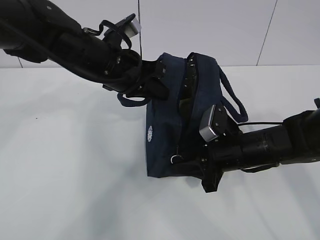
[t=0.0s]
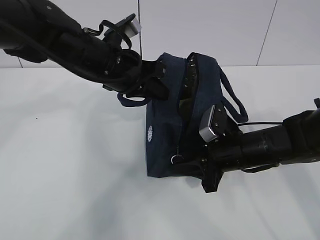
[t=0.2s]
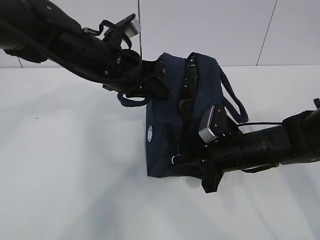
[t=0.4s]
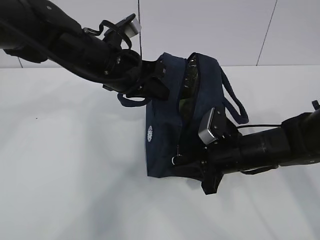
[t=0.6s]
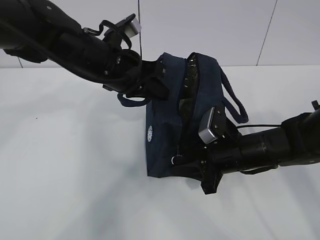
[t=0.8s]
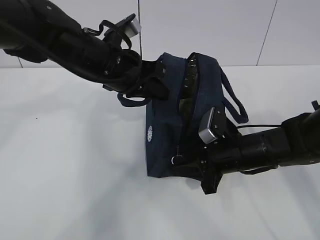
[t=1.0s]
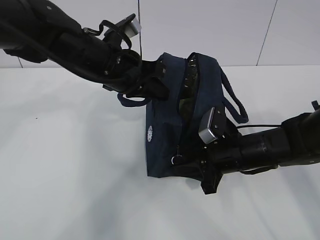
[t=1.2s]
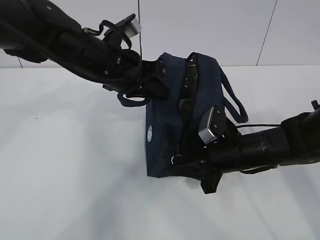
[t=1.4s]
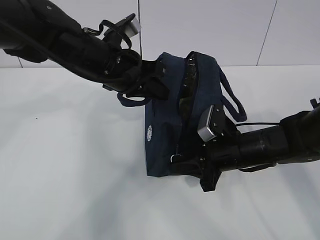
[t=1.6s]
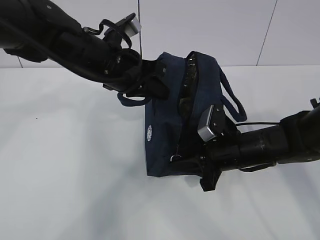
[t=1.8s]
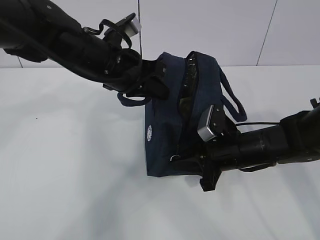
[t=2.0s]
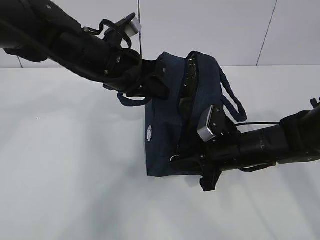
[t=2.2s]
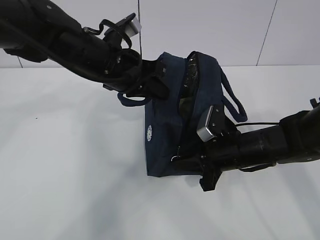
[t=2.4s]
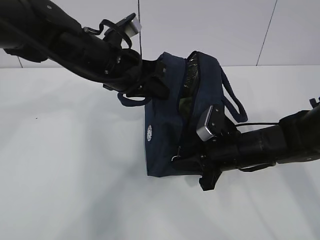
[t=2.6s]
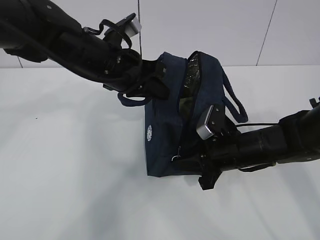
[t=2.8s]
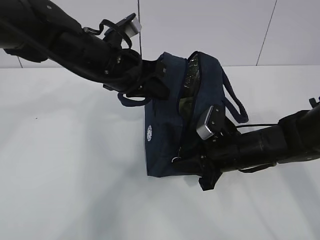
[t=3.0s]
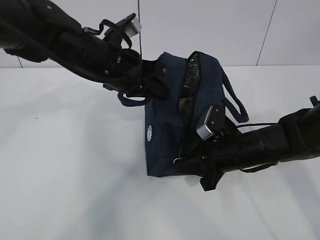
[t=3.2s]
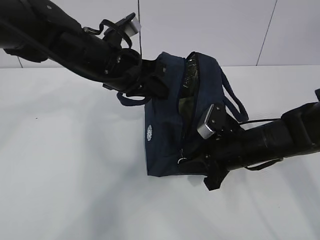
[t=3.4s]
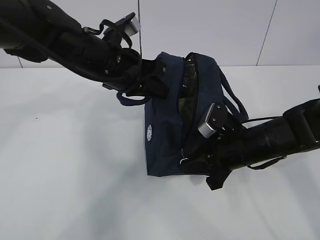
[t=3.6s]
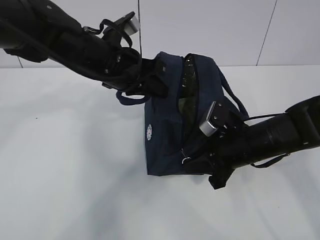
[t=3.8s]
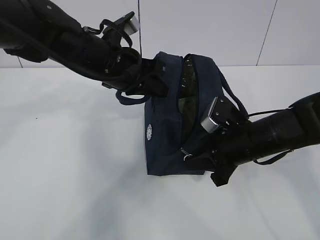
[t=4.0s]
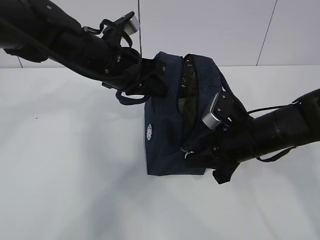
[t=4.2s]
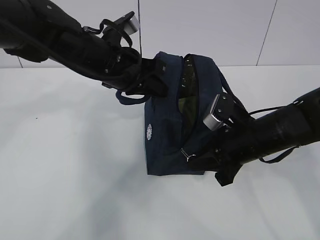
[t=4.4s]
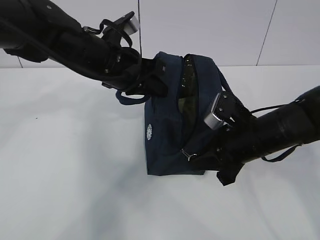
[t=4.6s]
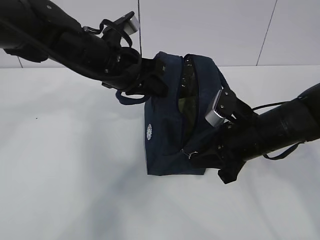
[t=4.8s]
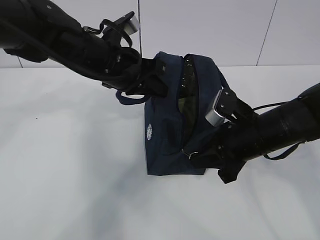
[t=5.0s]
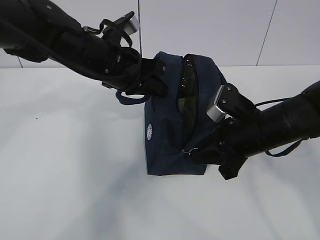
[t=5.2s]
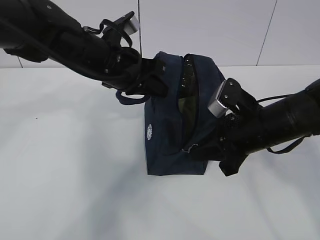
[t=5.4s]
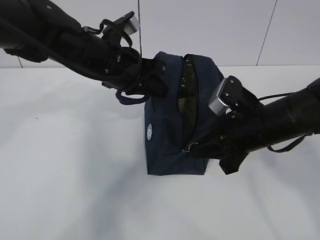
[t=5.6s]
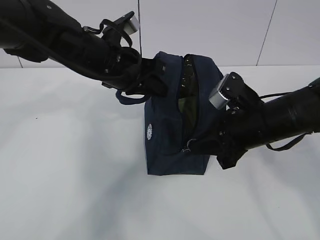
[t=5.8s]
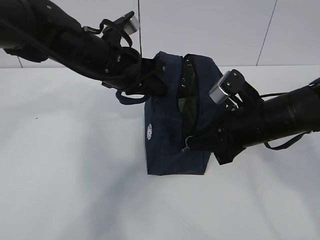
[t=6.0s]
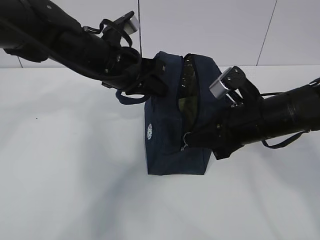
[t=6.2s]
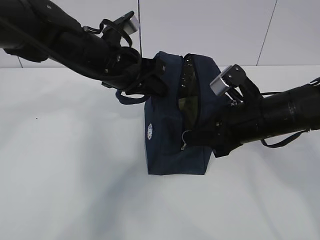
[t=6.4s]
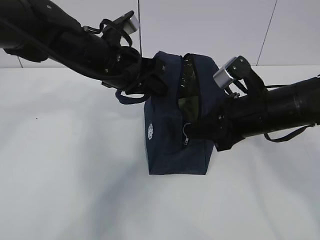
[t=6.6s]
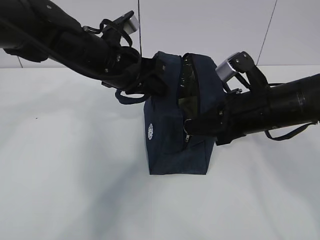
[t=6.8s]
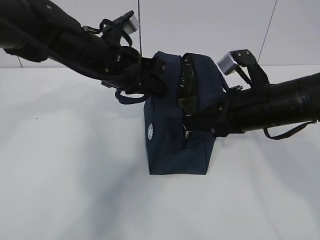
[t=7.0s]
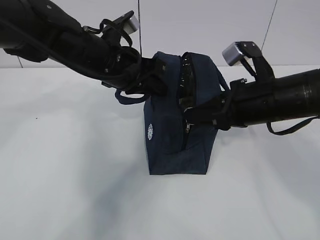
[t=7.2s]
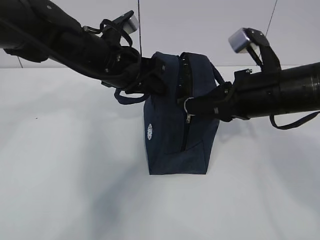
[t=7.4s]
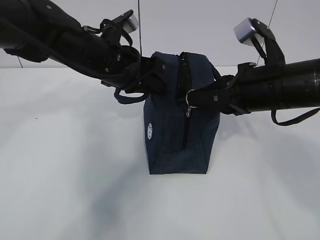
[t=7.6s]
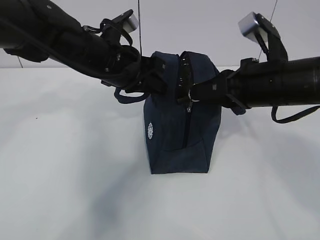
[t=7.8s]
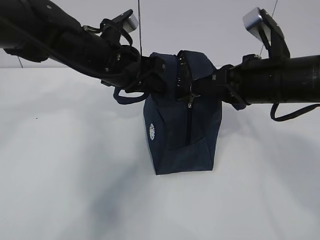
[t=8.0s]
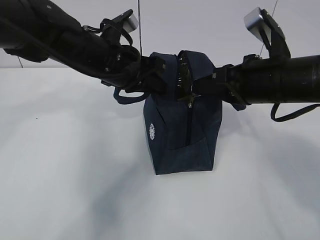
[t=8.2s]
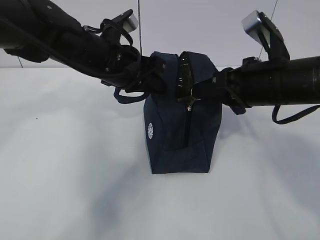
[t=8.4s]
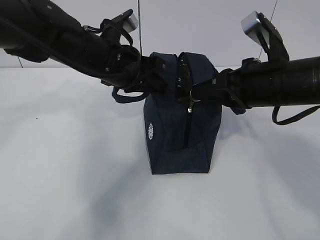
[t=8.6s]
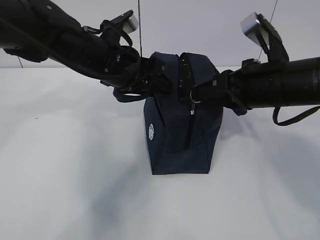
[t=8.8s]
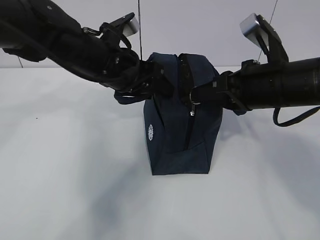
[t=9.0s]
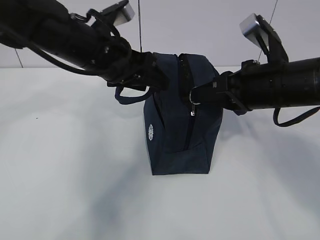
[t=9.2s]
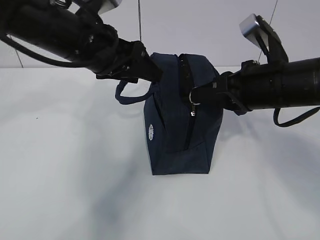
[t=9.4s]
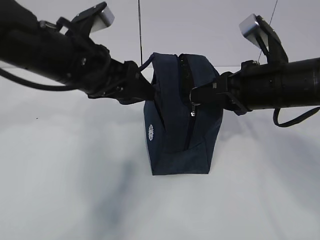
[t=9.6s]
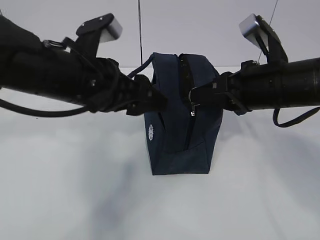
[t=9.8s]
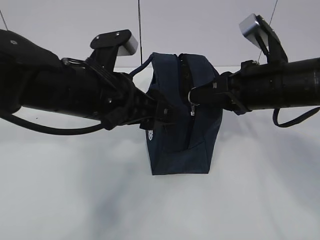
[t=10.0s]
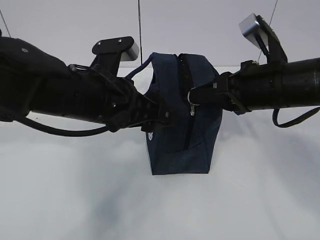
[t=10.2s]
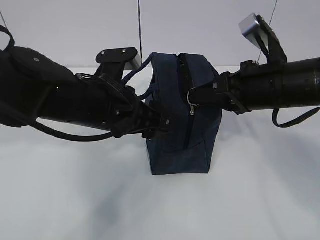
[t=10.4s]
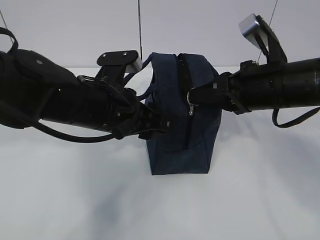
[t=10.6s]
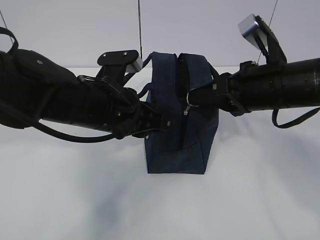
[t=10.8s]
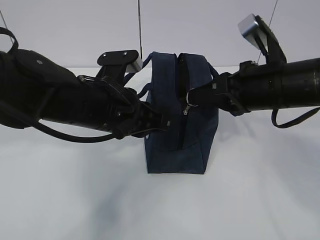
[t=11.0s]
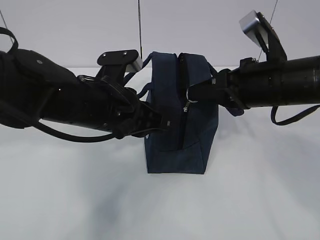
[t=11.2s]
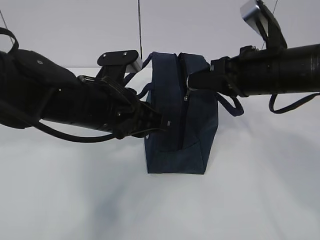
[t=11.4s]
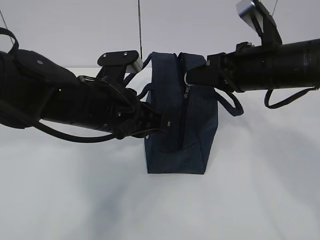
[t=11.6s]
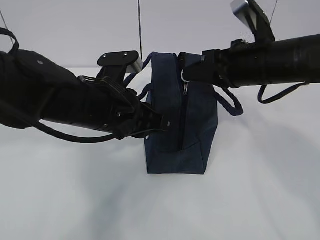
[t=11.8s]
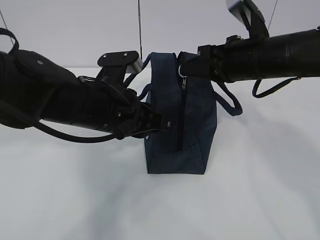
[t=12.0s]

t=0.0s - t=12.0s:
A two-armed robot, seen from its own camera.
Step, t=0.0s - t=3.2s: Pull the zipper with your right hand.
t=0.0s - t=1.6s: Both grippers stay put.
t=1.6s - t=3.0s: The grippers make only small movements.
t=3.0s - t=4.4s: The right gripper shifts by about 5 cm.
t=4.4s - t=6.0s: The grippers stay close to where they were, moving slightly.
t=6.0s - t=7.6s: The right gripper goes approximately 5 cm upward.
t=7.6s - t=9.0s: The left gripper opens.
t=9.0s - t=10.4s: The left gripper moves backward, some 10 cm.
t=10.4s - t=12.0s: The right gripper is displaced forward by about 5 cm. Meanwhile the left gripper closes.

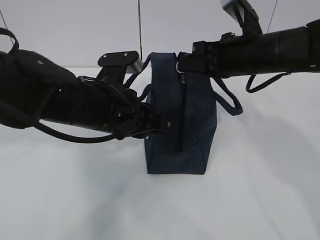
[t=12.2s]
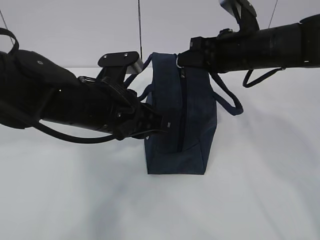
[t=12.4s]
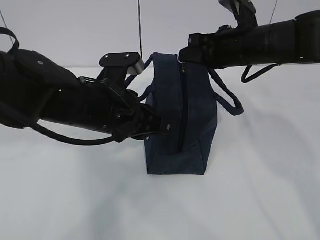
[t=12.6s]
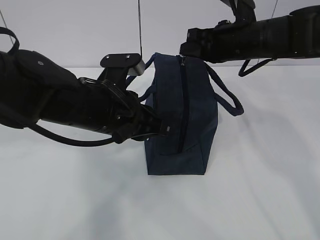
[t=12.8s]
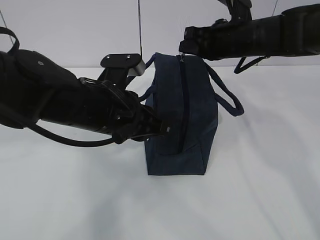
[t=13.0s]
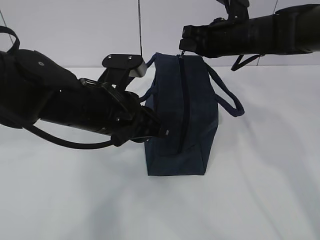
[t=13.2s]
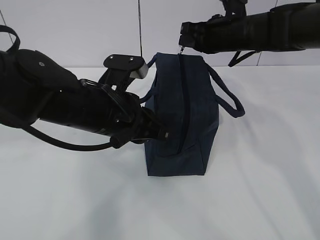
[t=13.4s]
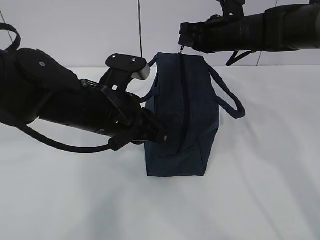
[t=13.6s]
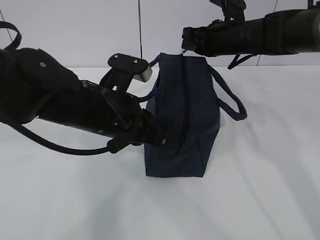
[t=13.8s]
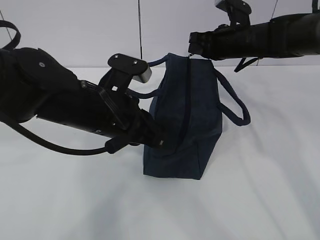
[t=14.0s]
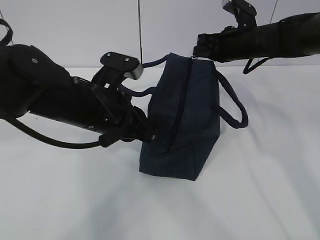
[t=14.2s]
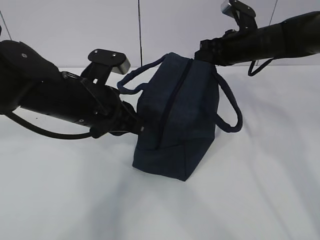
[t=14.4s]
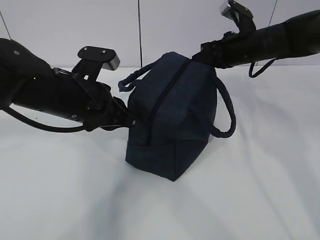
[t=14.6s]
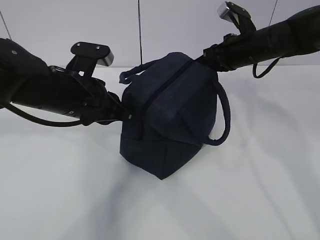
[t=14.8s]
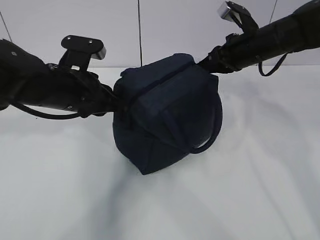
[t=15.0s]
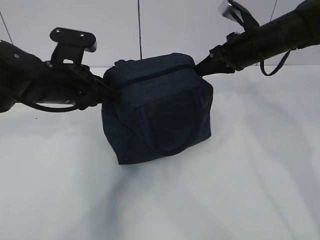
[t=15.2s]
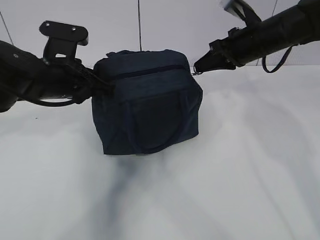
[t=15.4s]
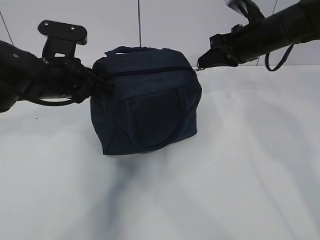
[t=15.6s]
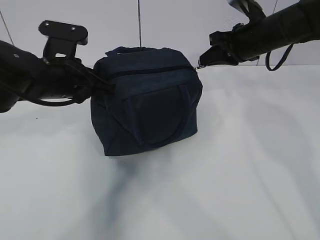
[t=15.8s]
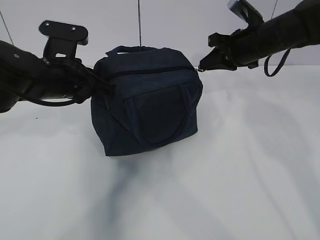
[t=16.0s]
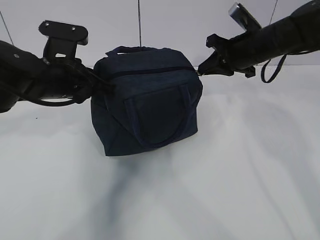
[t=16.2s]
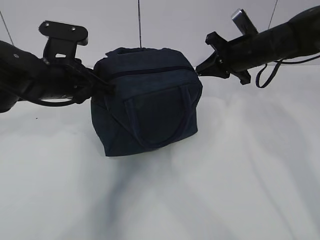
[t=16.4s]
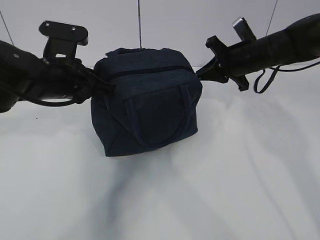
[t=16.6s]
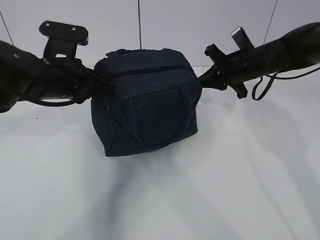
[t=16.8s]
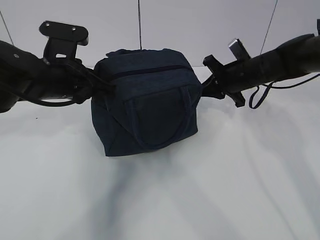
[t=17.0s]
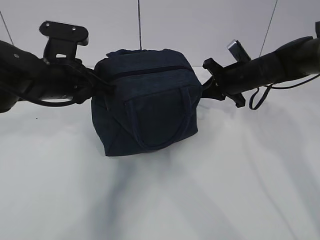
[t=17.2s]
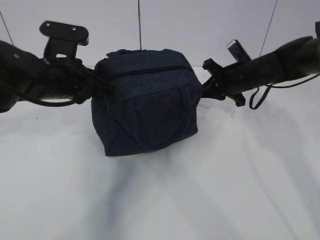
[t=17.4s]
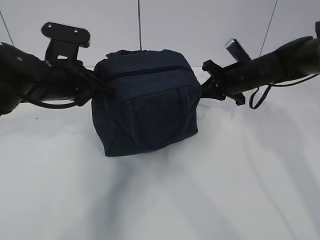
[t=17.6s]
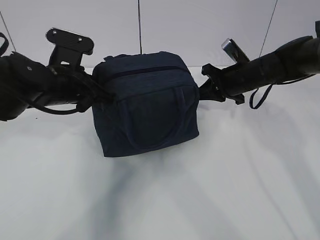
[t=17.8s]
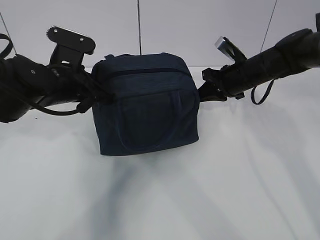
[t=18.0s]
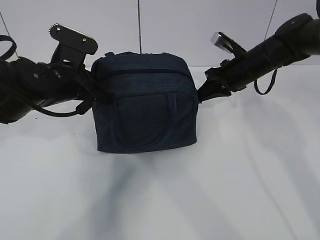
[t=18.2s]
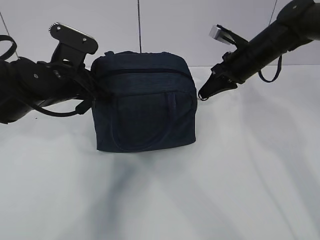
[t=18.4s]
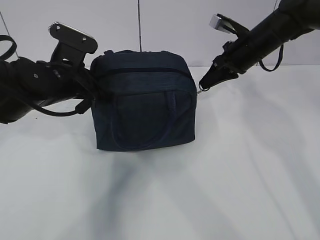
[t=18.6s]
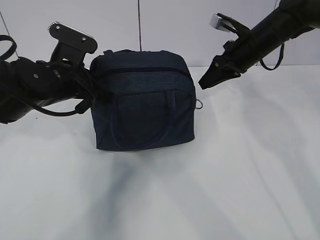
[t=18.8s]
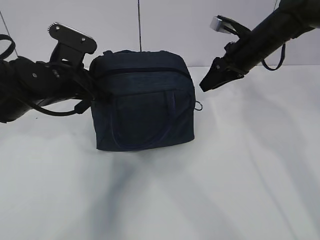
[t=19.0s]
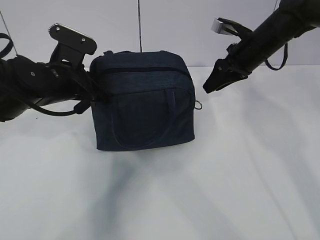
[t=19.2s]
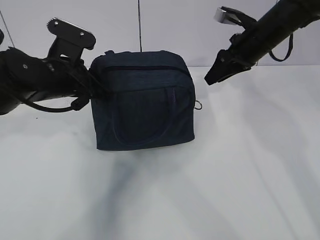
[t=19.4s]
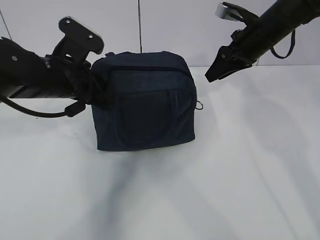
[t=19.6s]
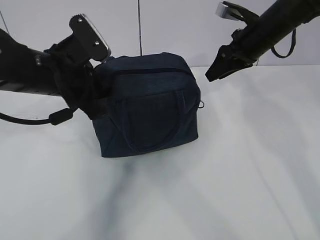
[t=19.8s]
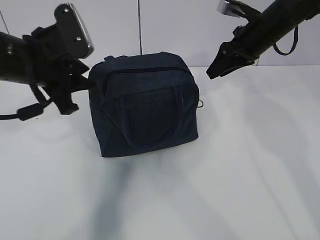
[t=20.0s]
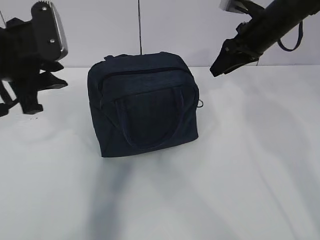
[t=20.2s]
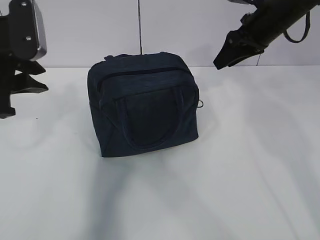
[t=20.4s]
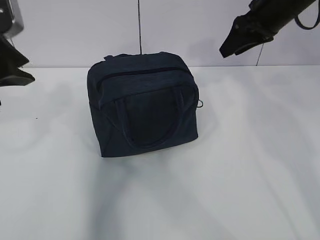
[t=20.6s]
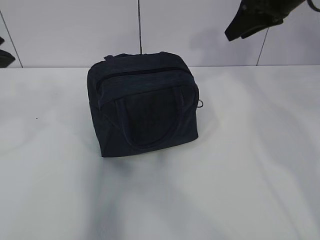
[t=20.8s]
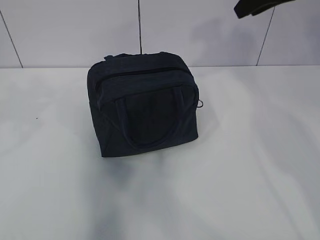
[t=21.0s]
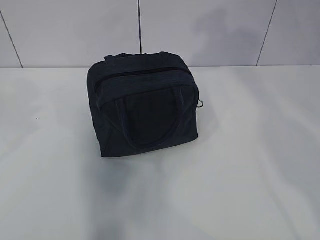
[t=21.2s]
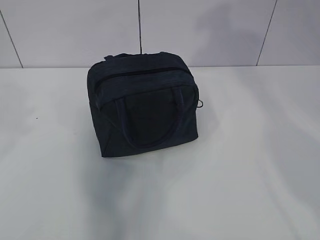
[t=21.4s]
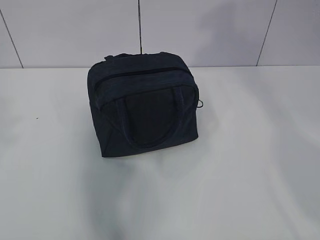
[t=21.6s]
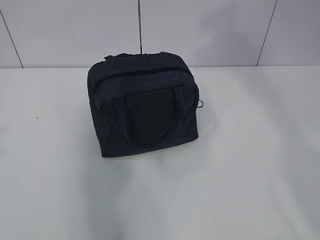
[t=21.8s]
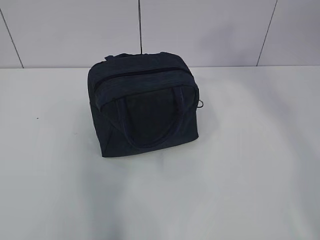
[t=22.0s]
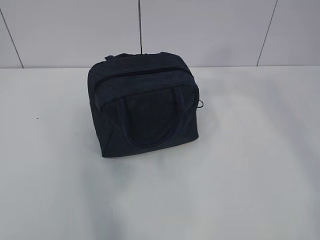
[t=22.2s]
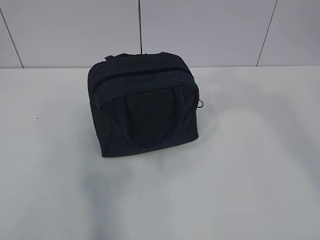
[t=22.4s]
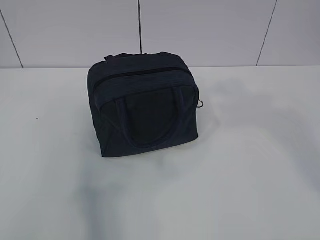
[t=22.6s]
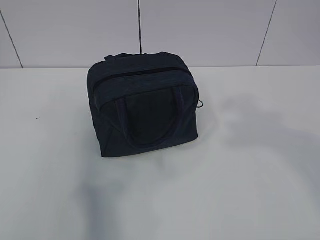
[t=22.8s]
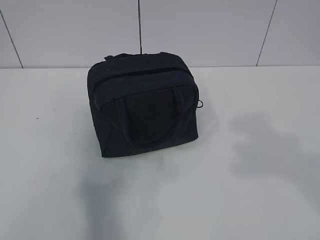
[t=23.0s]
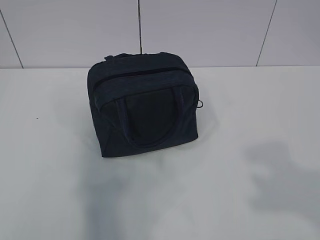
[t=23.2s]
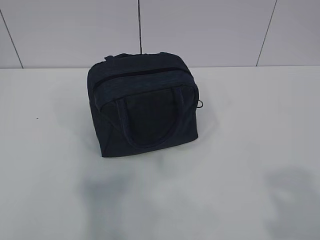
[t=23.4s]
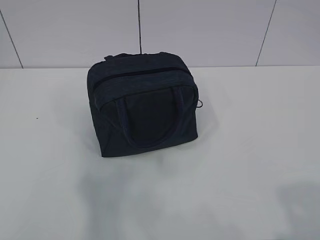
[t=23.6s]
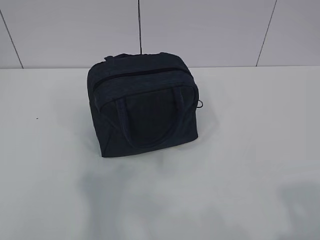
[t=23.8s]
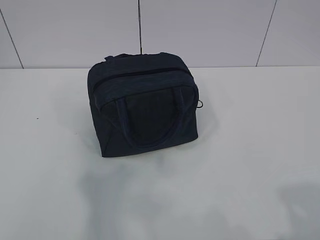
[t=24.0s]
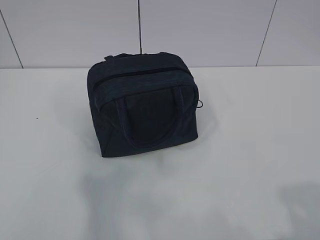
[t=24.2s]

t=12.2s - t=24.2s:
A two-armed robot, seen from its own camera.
t=12.2s - t=13.8s: The right gripper travels forward by some 10 cm.
t=13.8s - t=15.2s: The left gripper goes about 10 cm to the left and forward.
t=18.2s - t=19.8s: The right gripper moves upward, approximately 5 cm, and opens up. The left gripper opens.
t=19.8s - t=21.2s: The left gripper travels upward, backward and to the left by approximately 25 cm. Meanwhile the right gripper goes some 20 cm upward and backward.
t=21.2s - t=22.6s: The grippers both shift backward by approximately 25 cm.
